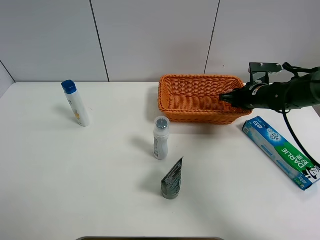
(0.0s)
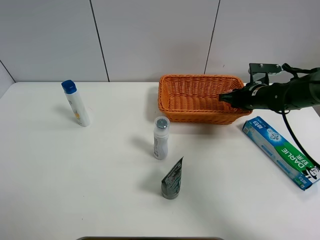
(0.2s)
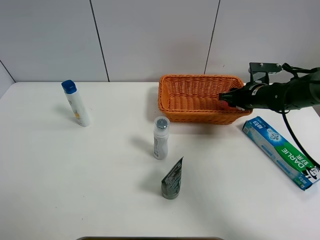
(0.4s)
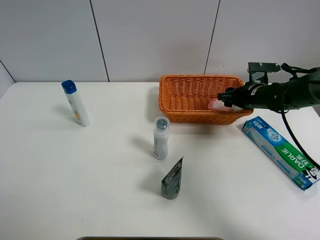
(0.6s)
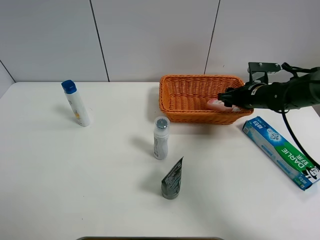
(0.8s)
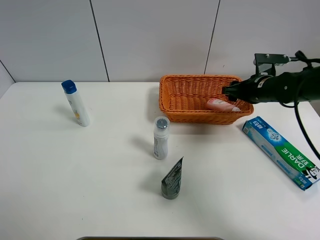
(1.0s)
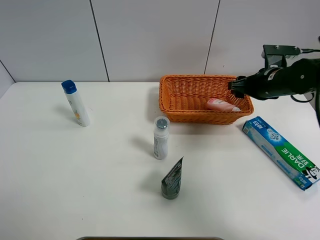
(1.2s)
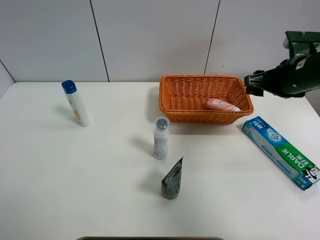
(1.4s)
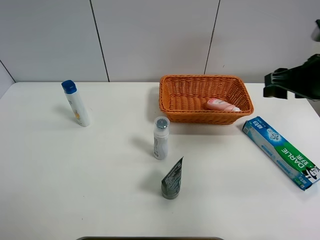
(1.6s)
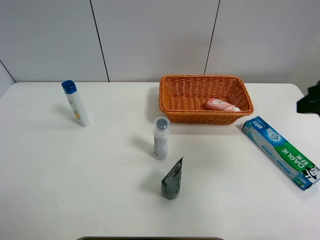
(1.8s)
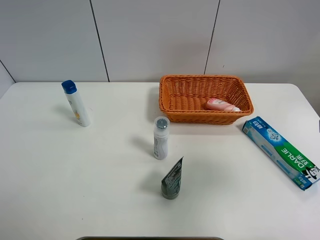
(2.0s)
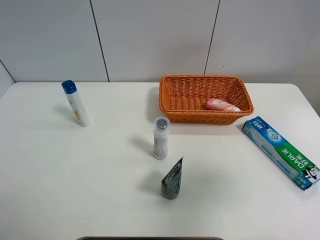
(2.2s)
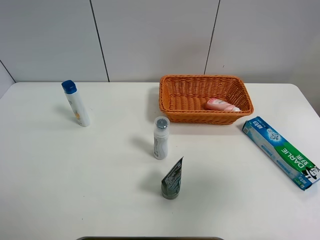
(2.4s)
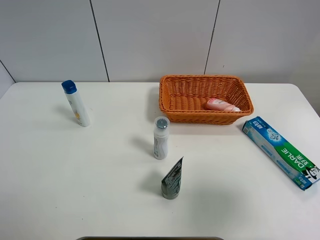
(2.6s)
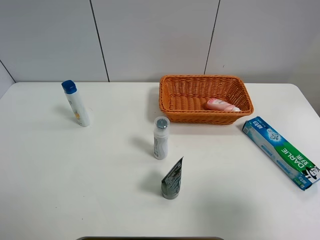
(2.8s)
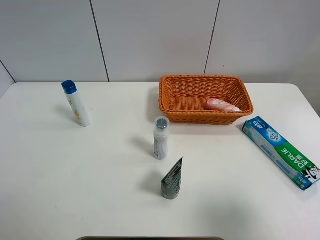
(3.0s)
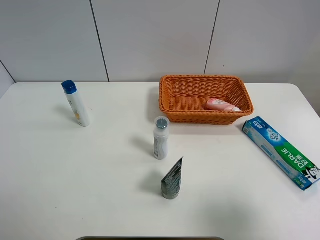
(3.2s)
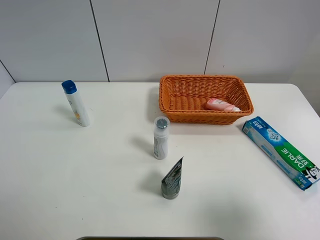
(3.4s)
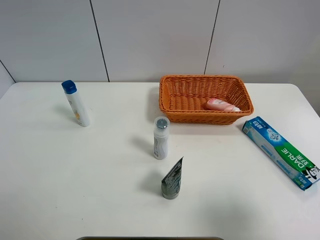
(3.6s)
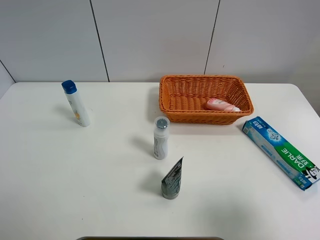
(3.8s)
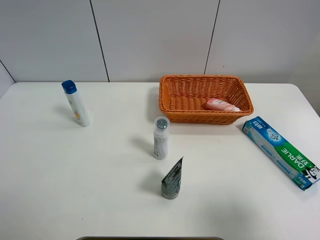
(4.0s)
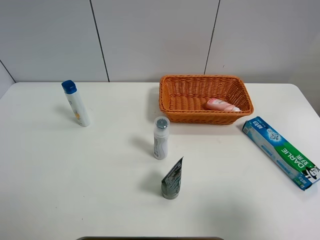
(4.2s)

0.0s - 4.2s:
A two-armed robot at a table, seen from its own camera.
Task of the whole recording: Place the object closest to the toothpaste in the basket.
0.0s - 1.4s: The right gripper travels upward and backward by approximately 15 cm, and opens its fingers.
1.4s - 2.8s: The right gripper is displaced backward by approximately 25 cm.
